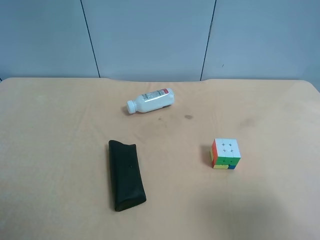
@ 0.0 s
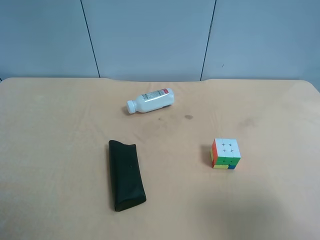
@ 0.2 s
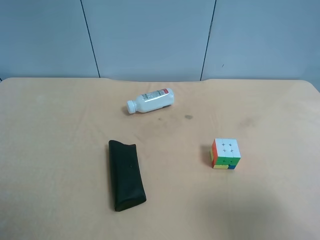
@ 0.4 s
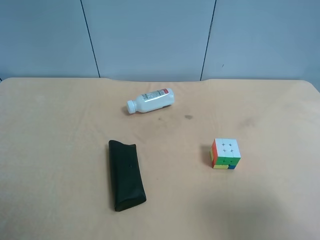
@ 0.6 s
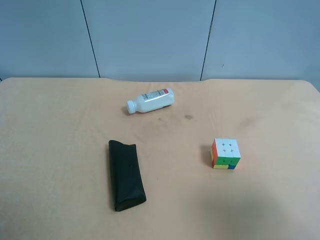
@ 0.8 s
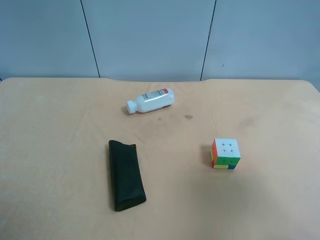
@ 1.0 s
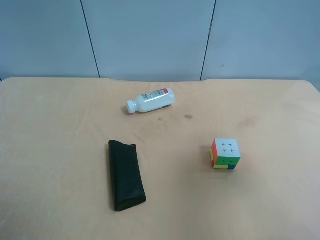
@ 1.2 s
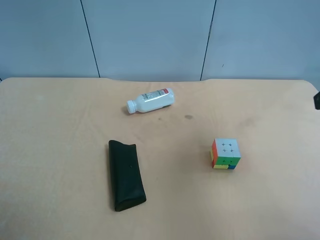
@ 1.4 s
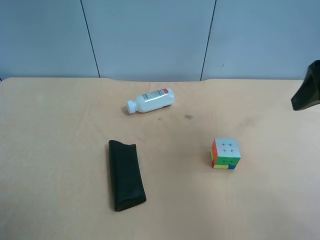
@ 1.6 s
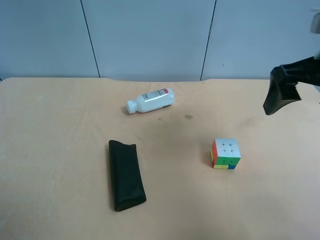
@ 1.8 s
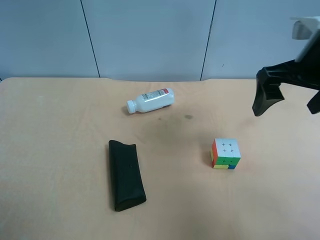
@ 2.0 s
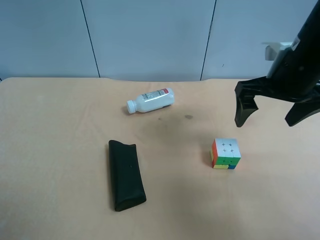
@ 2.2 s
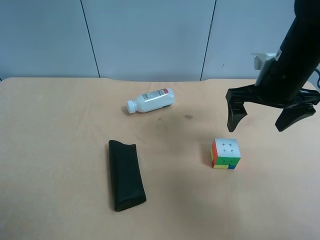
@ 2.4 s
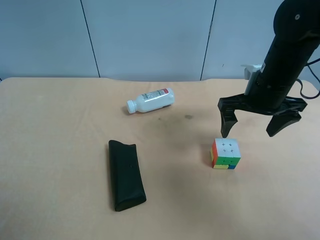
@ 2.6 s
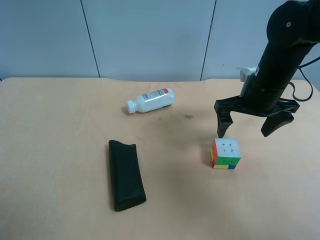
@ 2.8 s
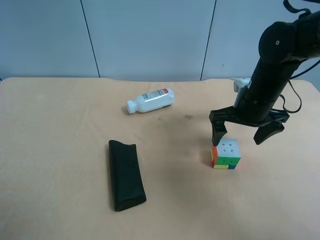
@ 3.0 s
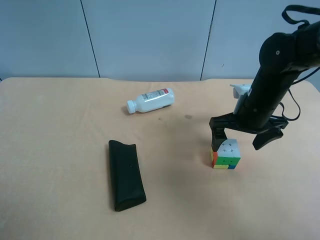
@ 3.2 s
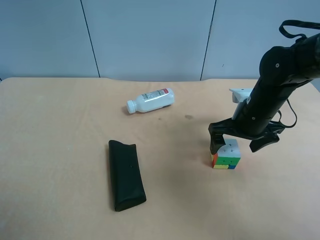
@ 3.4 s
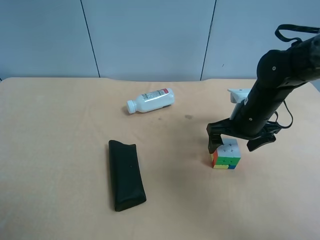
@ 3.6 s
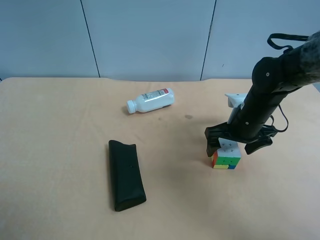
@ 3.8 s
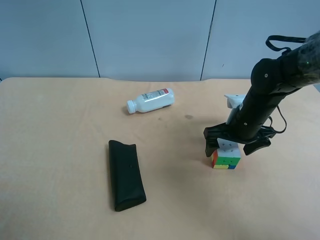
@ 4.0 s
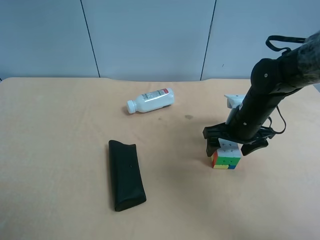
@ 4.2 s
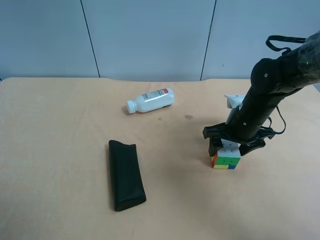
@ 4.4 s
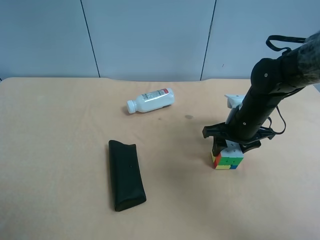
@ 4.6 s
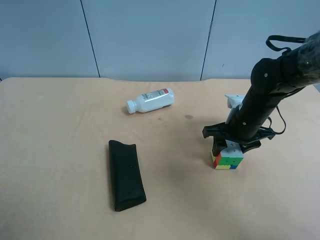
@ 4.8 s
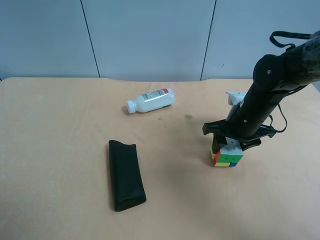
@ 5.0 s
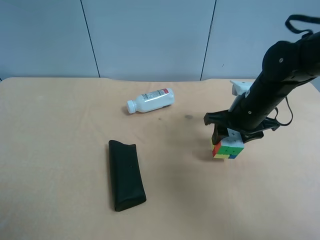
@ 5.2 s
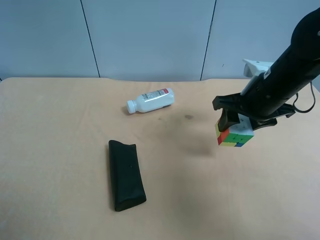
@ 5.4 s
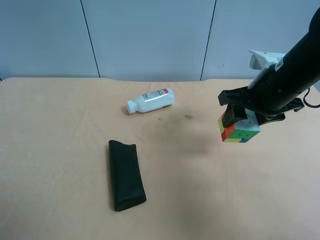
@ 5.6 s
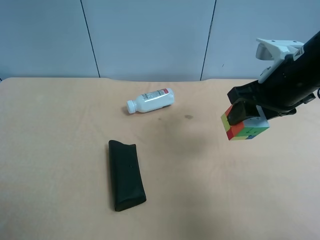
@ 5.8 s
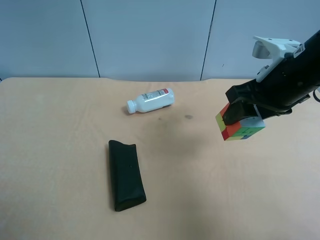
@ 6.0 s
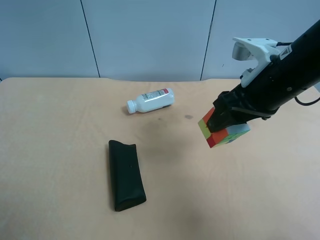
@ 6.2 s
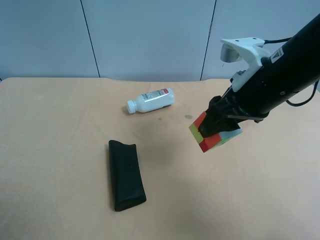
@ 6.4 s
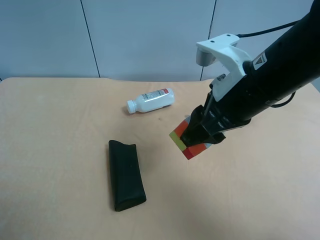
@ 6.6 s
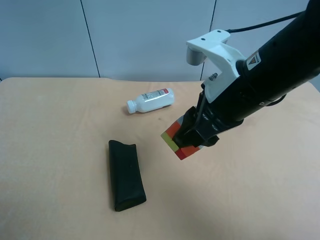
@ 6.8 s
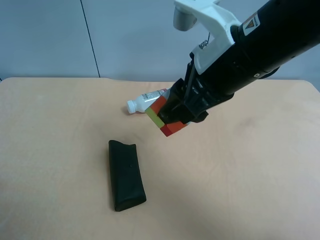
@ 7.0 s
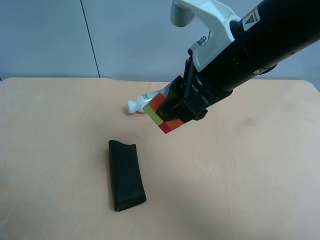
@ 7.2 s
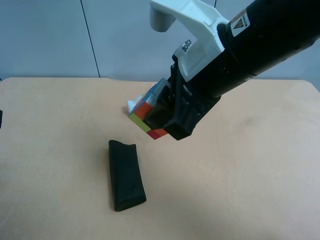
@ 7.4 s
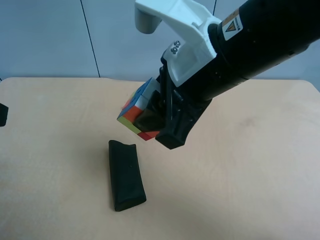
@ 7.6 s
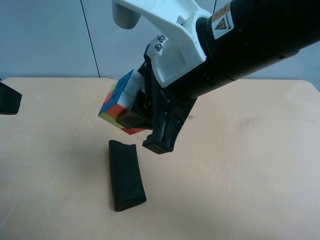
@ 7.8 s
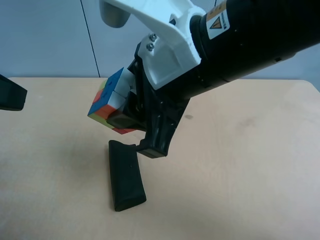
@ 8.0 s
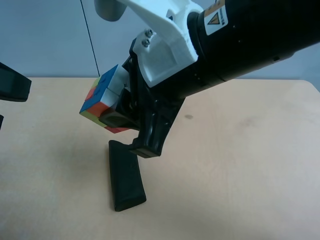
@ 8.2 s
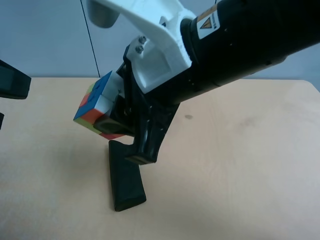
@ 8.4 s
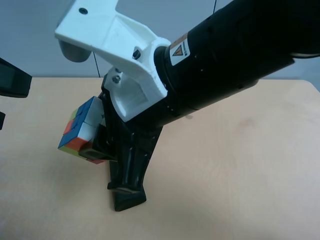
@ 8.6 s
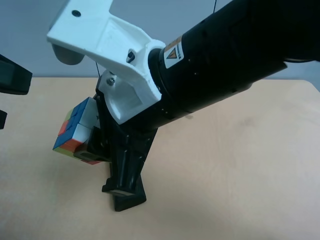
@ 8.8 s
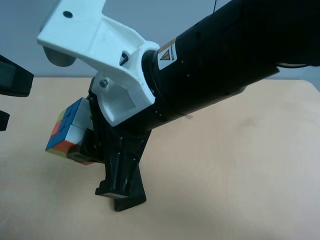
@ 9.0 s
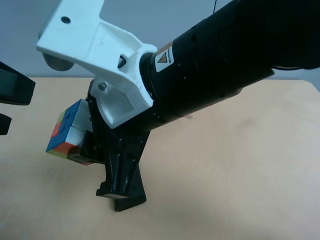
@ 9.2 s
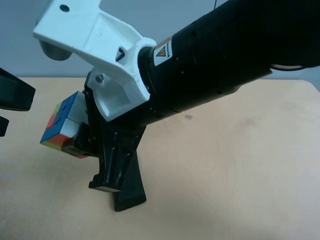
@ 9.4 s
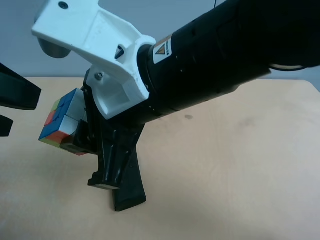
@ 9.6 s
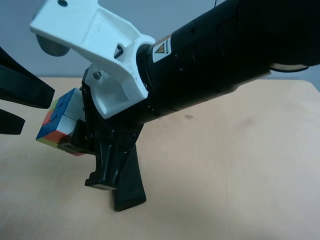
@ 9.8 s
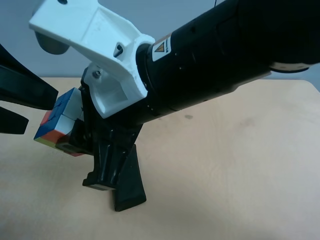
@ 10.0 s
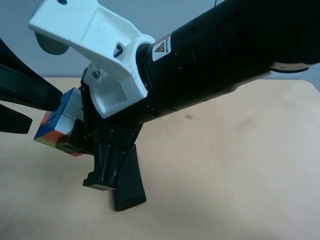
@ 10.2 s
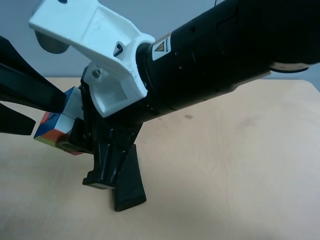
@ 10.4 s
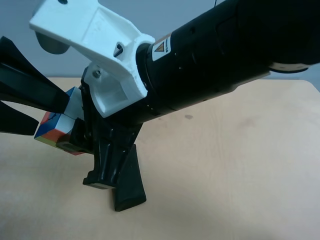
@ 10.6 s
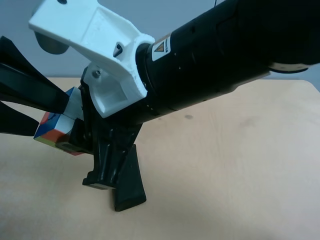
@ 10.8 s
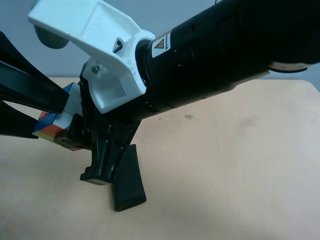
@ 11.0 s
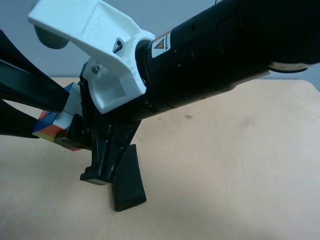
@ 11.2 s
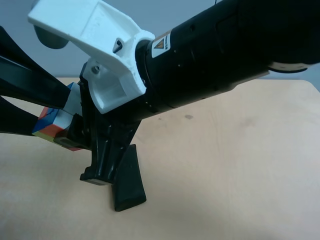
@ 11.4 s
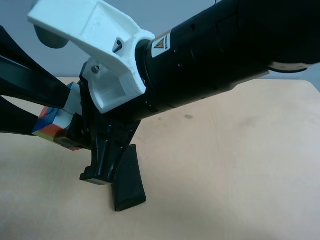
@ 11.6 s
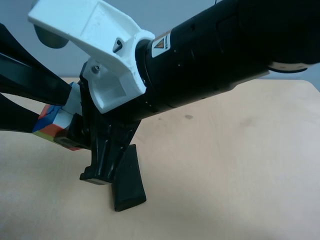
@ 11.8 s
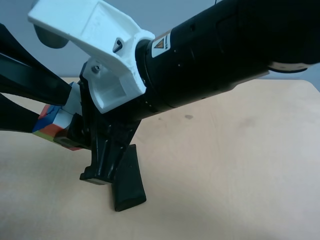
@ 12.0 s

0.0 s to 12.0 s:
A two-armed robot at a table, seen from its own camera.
Task of the whole recording: use the right gripper to pick up the item and transfer it from the right gripper to the left gripper.
0.0 to 1.6 s: The right gripper goes about 15 cm forward.
1.6 to 3.0 s: The right gripper moves downward, forward and to the left, some 20 cm.
3.0 to 4.4 s: The right gripper closes.
4.4 to 6.0 s: The right gripper shifts about 15 cm upward and backward.
6.0 to 7.6 s: The left gripper travels forward and upward by approximately 10 cm, while the right gripper is displaced to the left and backward by approximately 15 cm.
7.6 to 9.0 s: The right gripper is displaced to the left by about 5 cm.
9.0 to 12.0 s: The grippers stay close to where they were, moving slightly.

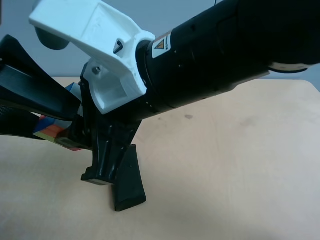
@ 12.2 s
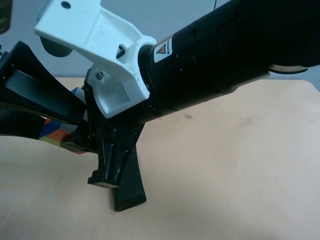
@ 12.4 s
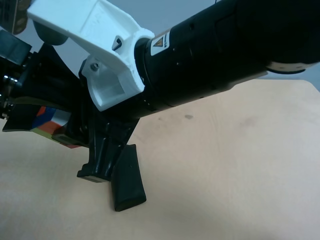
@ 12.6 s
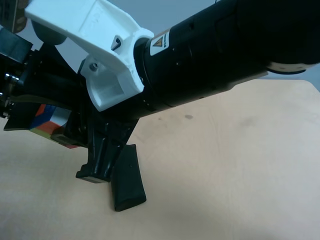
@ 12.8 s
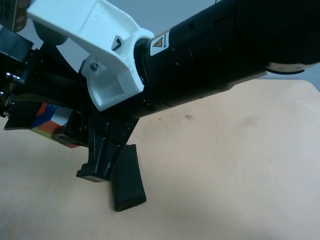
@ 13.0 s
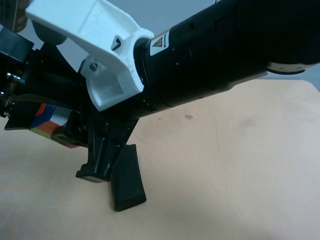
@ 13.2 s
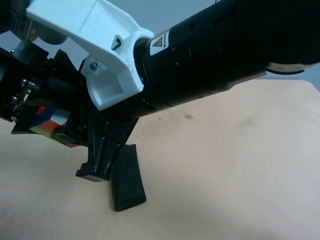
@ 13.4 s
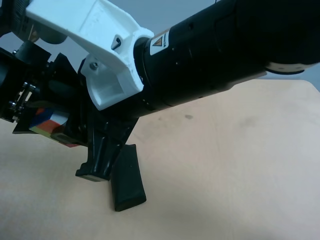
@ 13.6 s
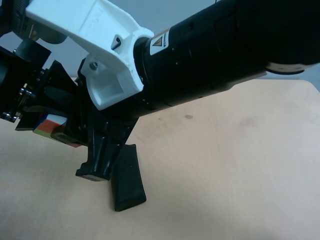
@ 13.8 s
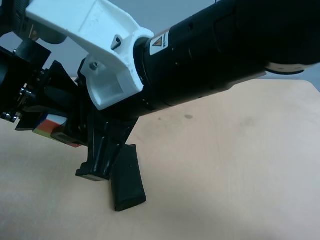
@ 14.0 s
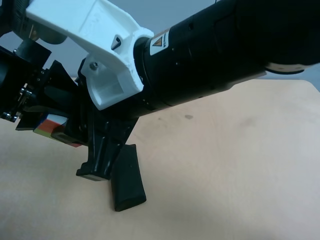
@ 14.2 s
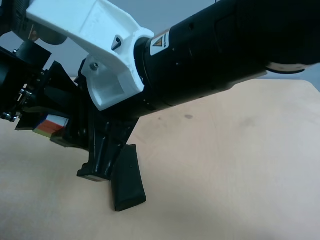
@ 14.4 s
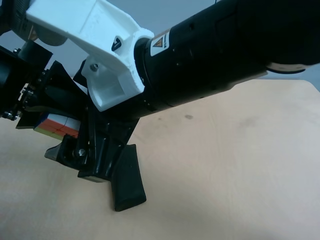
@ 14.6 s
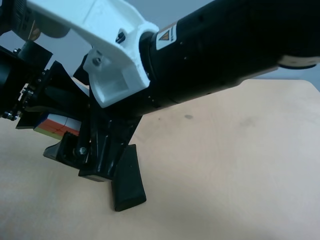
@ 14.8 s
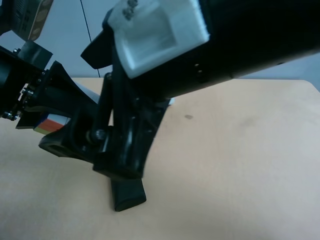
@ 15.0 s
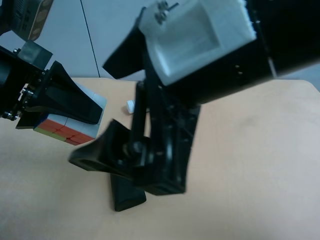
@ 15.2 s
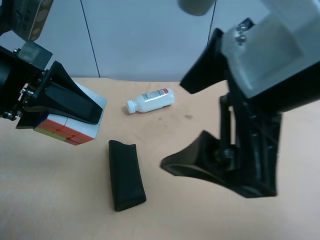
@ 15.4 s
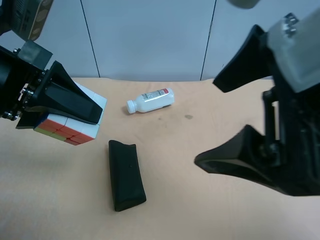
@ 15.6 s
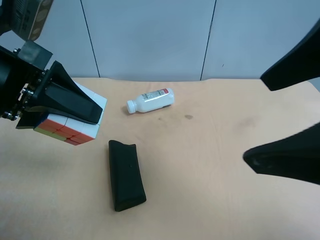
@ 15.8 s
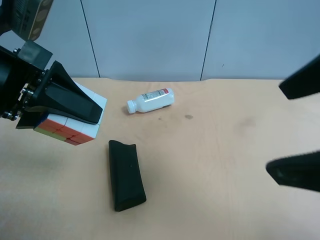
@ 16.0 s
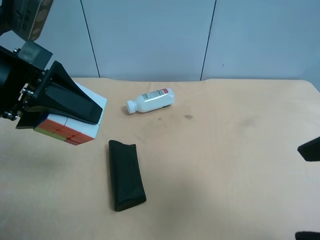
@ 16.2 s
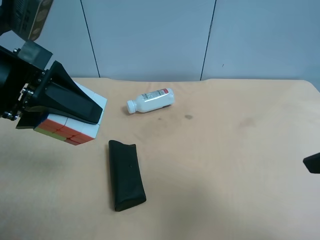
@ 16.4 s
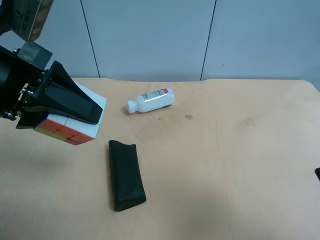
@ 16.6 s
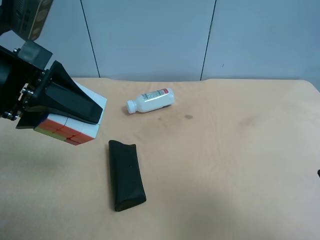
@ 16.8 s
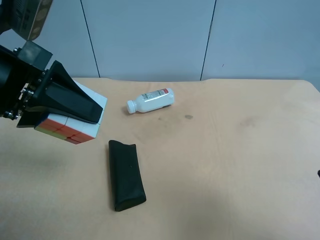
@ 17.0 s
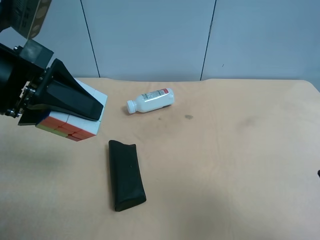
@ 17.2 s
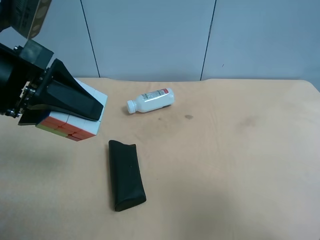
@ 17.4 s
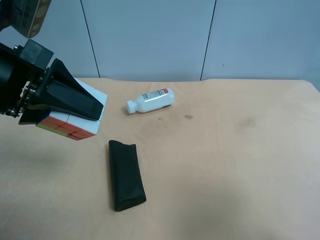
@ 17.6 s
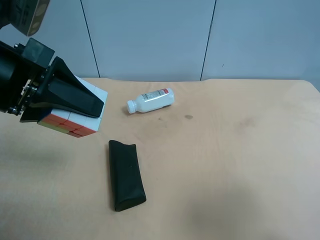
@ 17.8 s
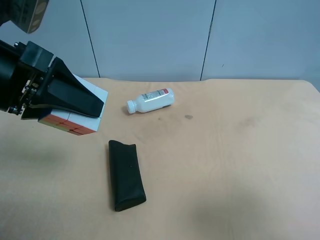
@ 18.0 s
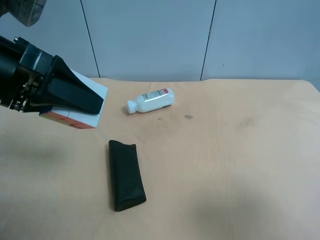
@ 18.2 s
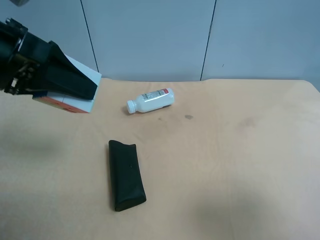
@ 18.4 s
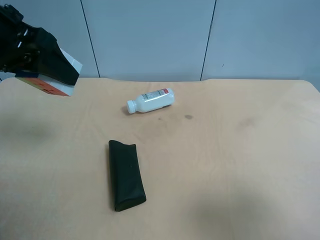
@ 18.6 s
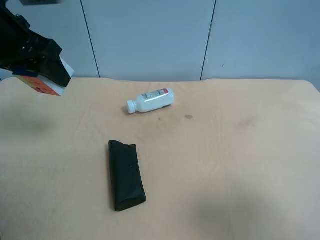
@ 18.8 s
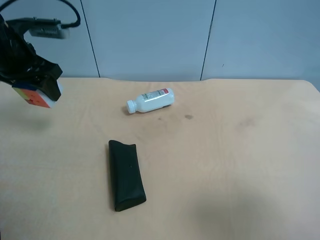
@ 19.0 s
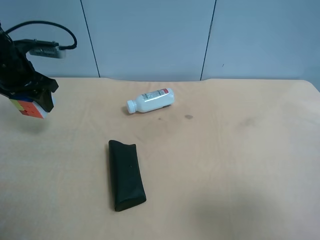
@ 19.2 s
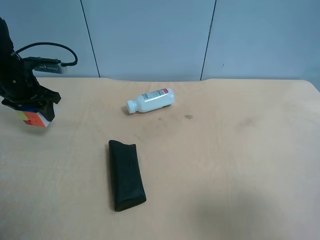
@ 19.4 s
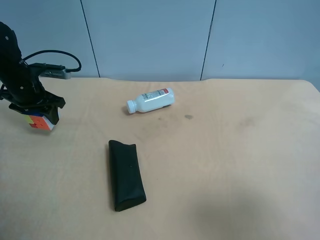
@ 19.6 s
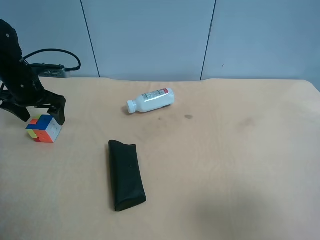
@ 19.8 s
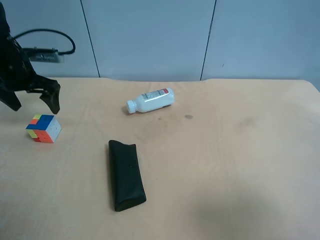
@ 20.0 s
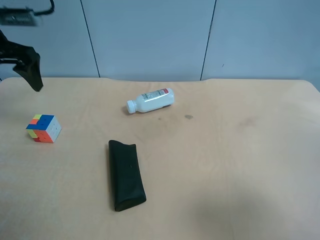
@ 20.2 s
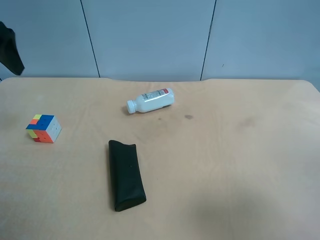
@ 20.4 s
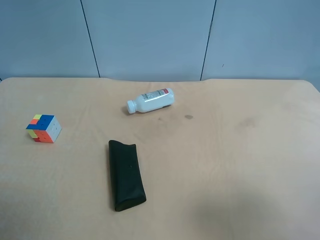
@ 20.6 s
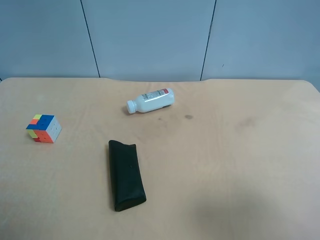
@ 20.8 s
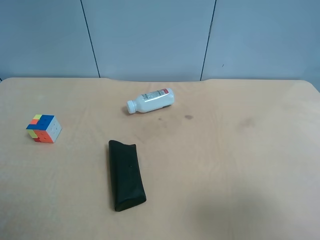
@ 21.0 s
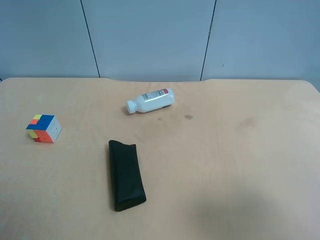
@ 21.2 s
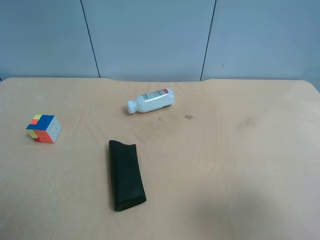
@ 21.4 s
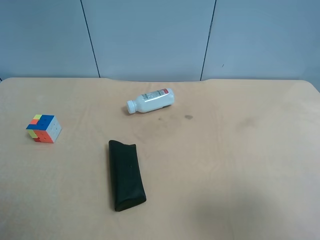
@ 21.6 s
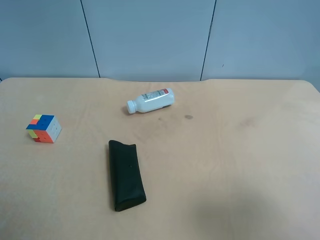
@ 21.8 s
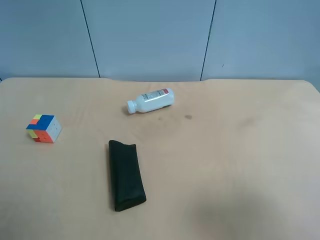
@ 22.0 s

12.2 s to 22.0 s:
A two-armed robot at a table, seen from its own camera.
Task of the whole recording: use the right gripper to pick up the item and transfer it from the right gripper to the left gripper.
12.2 to 13.6 s: The left gripper closes its fingers.
13.6 to 15.0 s: The right gripper shifts by some 5 cm, and opens. The left gripper closes.
15.0 to 16.4 s: The right gripper heads to the right and backward, covering roughly 20 cm.
16.4 to 17.8 s: The right gripper goes roughly 5 cm to the right.
17.8 to 19.2 s: The left gripper heads forward, to the left and downward, covering about 20 cm.
19.2 to 20.6 s: The left gripper moves backward and upward, approximately 25 cm, and opens its fingers.
